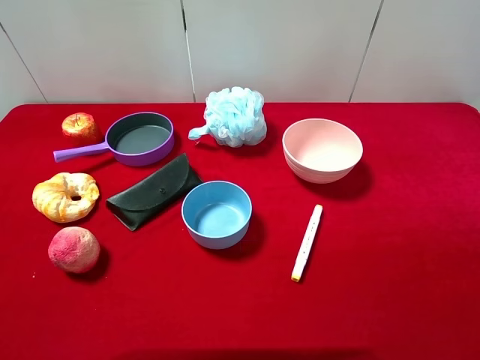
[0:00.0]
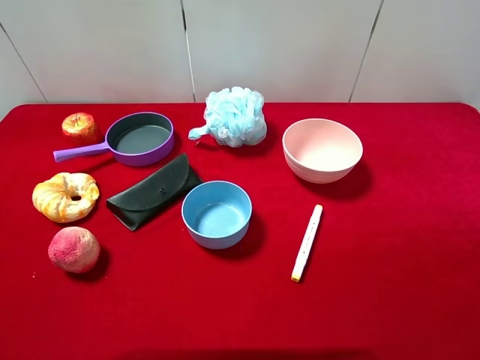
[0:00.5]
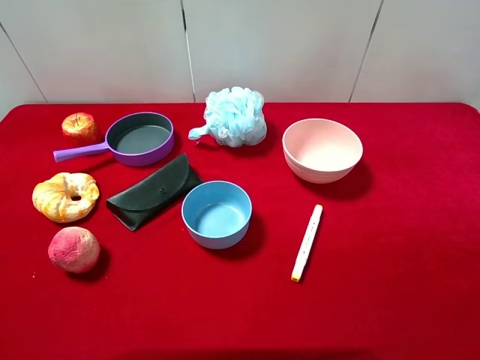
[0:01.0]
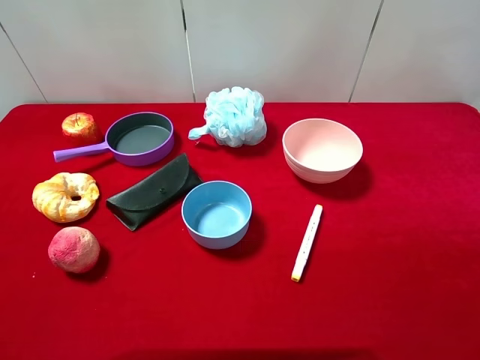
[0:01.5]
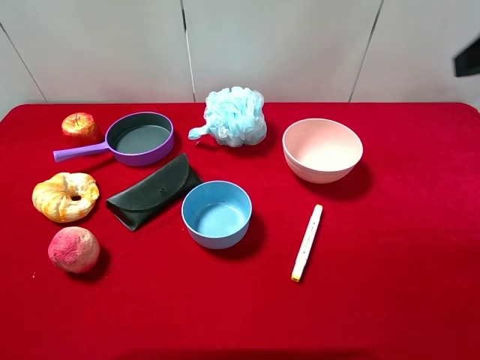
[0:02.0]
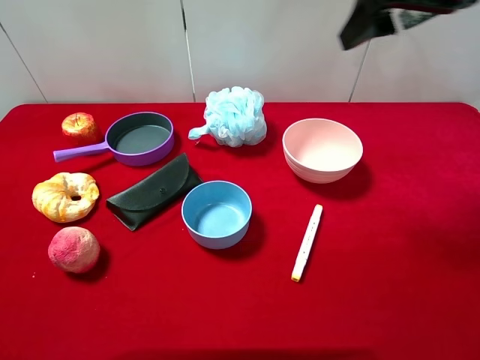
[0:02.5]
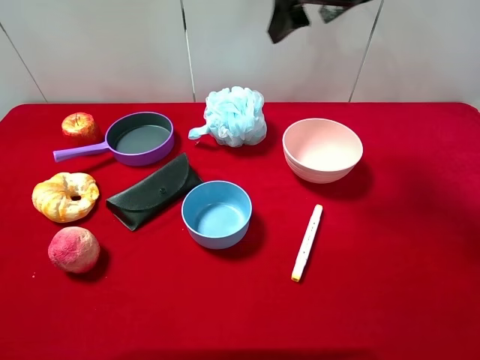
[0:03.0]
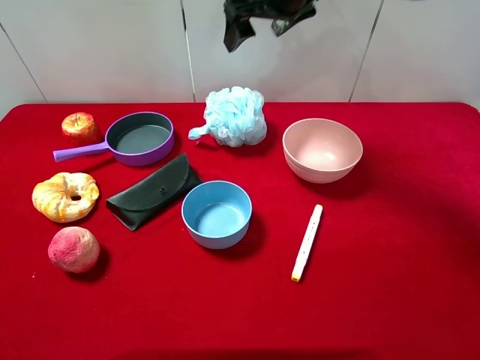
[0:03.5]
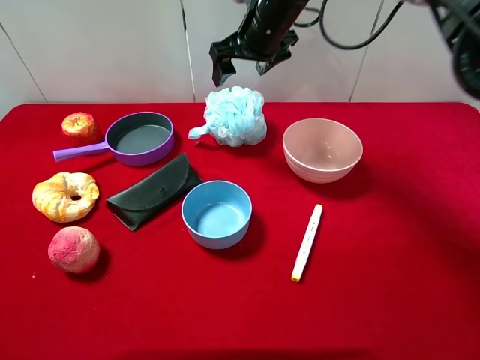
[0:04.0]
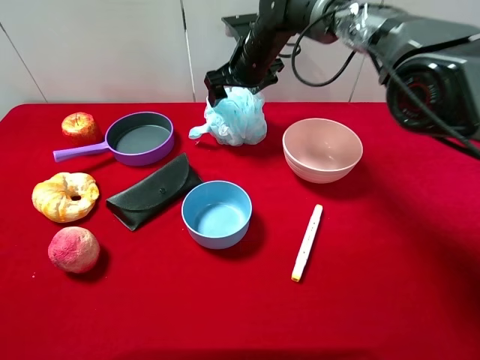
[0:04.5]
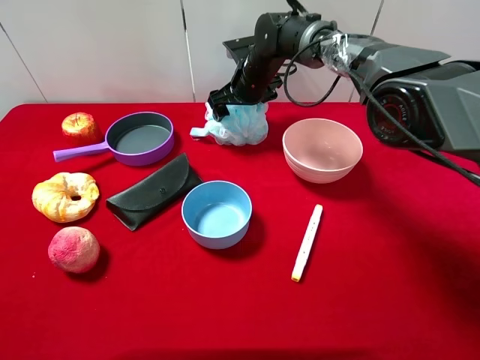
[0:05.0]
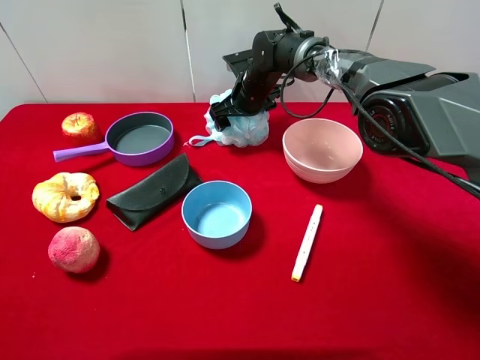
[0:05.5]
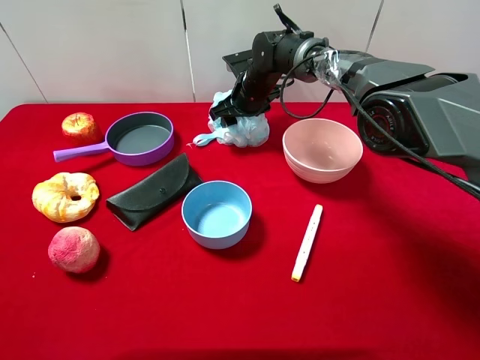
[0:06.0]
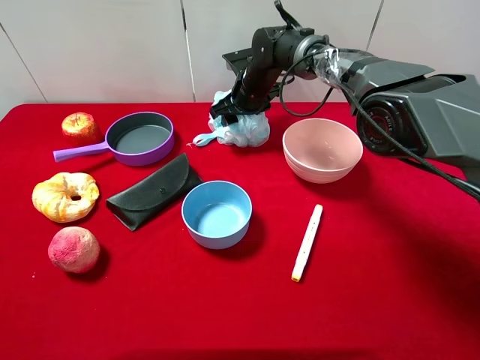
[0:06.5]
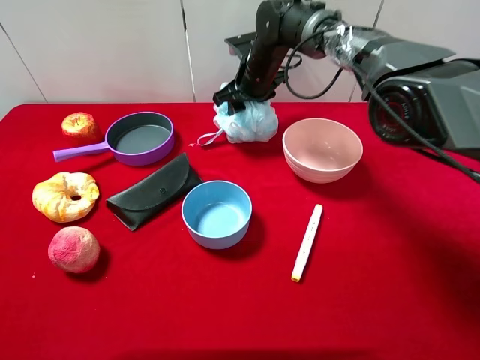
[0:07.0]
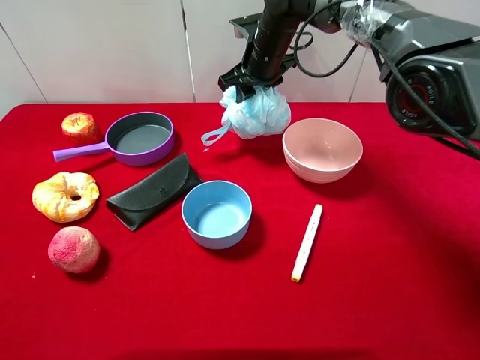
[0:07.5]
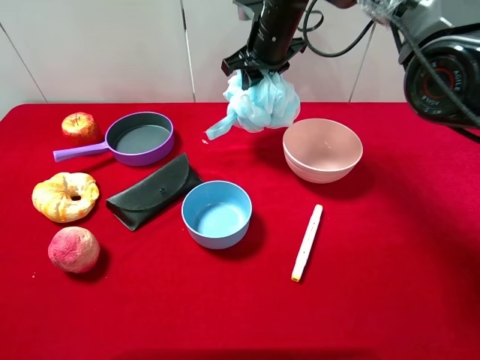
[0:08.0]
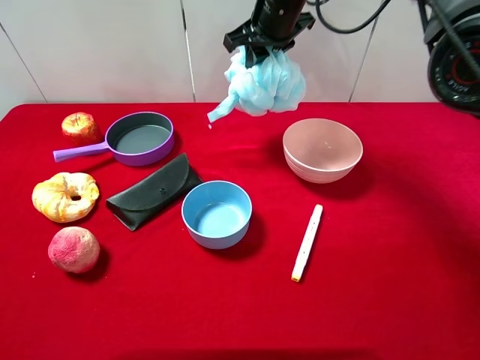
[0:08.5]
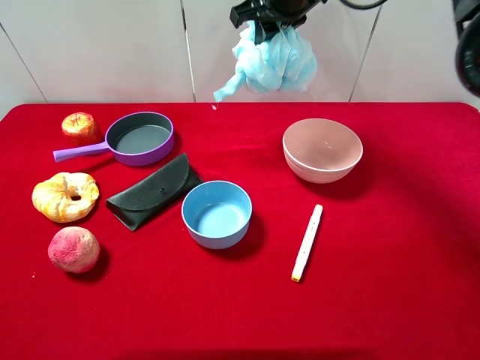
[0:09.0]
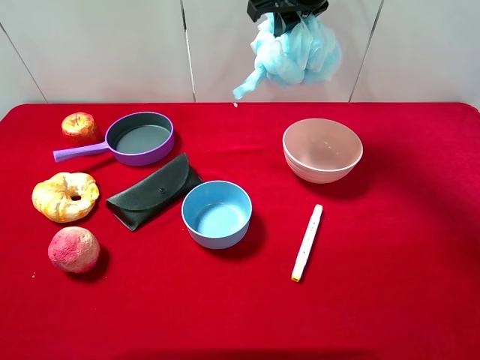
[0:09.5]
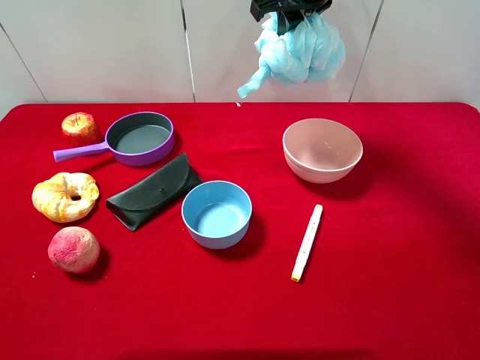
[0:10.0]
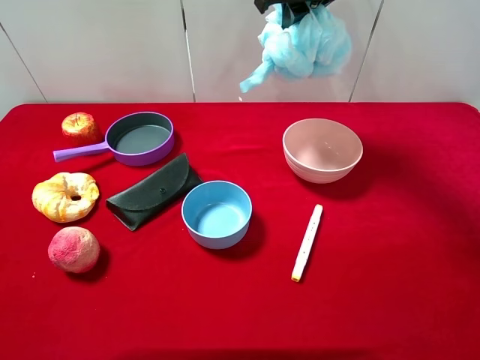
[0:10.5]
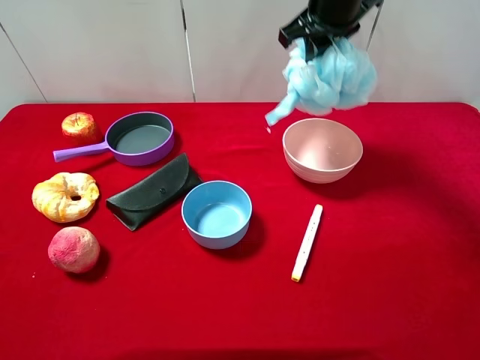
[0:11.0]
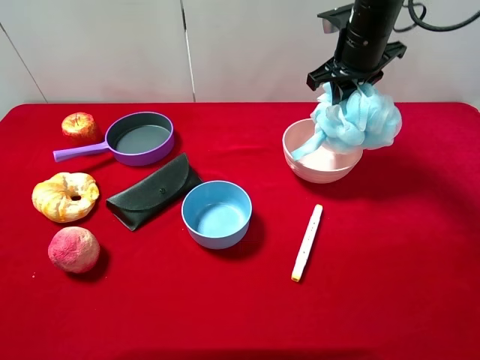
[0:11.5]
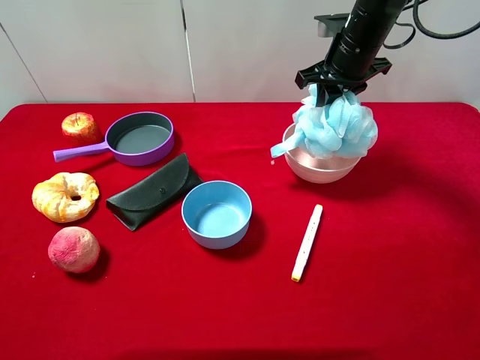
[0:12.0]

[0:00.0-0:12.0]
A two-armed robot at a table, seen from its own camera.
Task of the whole recording: pick up an item with a gripper and place it in a random container on the desktop.
0:02.0 to 0:04.0: The right gripper goes some 35 cm to the left, forward and downward.
0:04.0 to 0:06.0: The right gripper shifts some 15 cm downward, and closes its fingers.
0:06.0 to 0:08.0: The right gripper shifts approximately 10 cm upward, and closes its fingers.
0:08.0 to 0:10.0: The right gripper heads upward, covering approximately 10 cm.
0:10.0 to 0:12.0: The right gripper is displaced downward and to the right by roughly 10 cm.

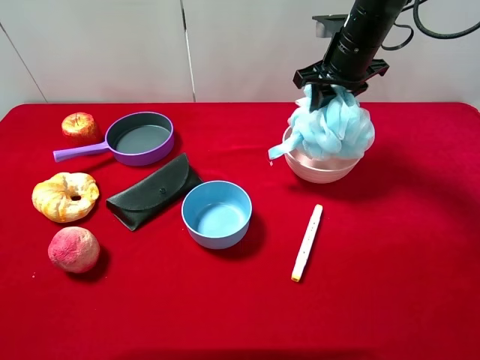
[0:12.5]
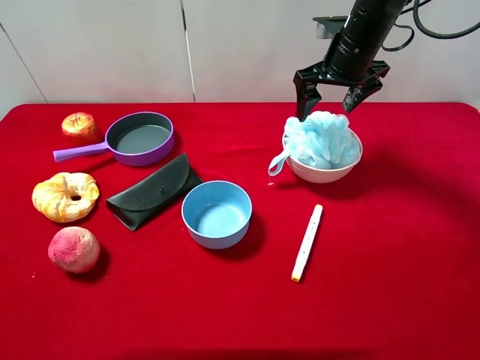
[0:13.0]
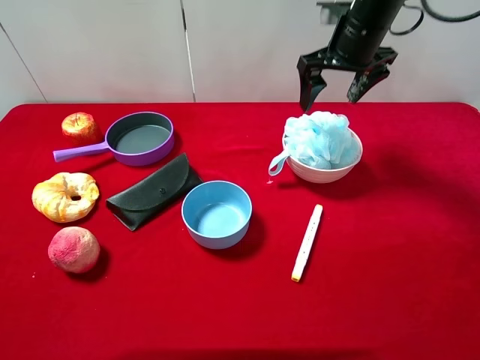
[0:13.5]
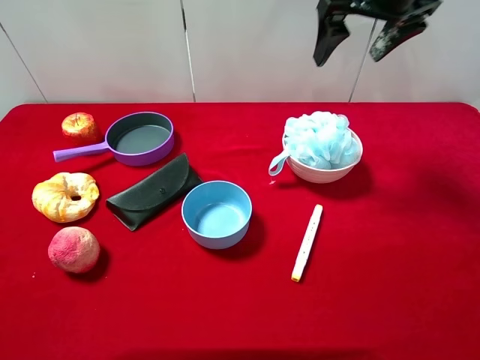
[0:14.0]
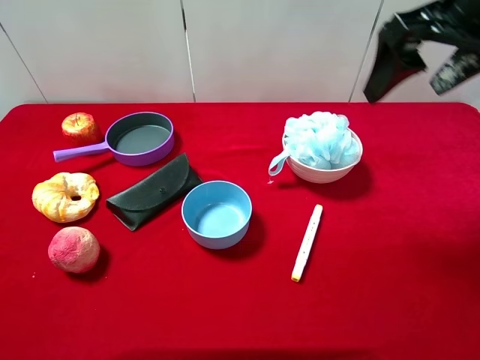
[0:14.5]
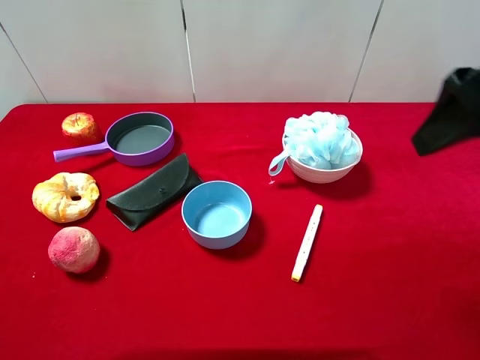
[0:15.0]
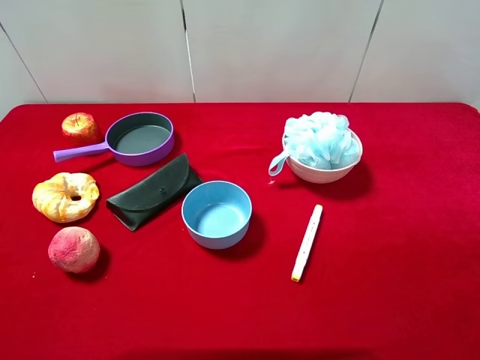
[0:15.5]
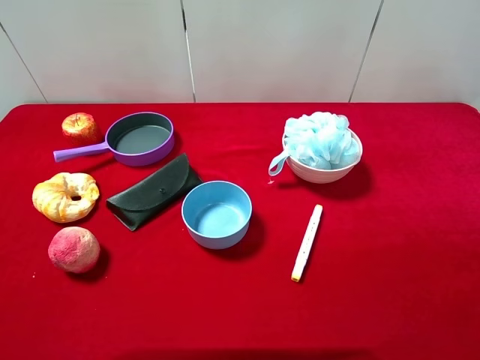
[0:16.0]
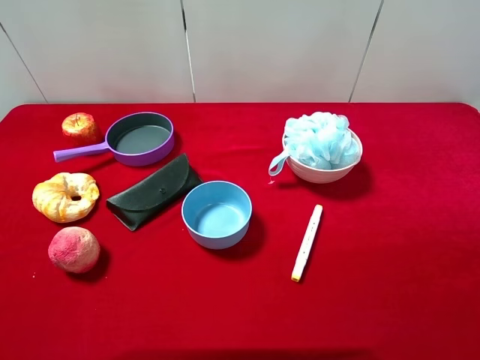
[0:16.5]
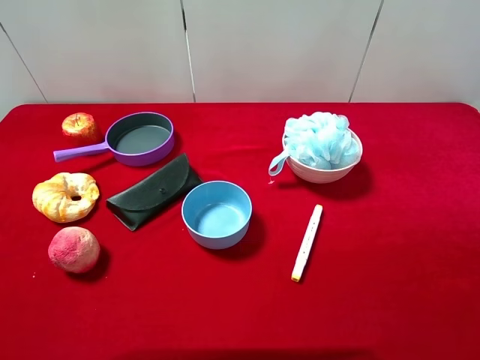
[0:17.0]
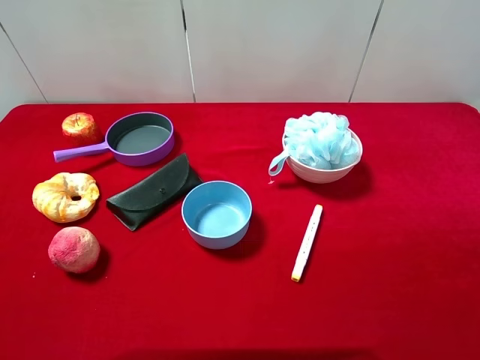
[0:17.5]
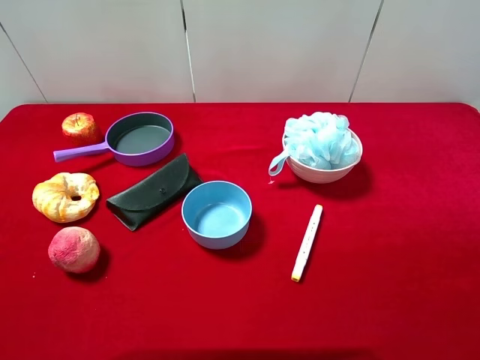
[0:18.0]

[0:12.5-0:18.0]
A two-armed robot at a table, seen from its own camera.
Task of the whole recording: pick up an item with a gripper and place it in a random container on the desktop.
0:12.5 to 0:14.5: The right gripper shifts roughly 20 cm backward and upward, and opens its fingers.
0:14.5 to 0:16.0: The right gripper moves backward, roughly 25 cm.

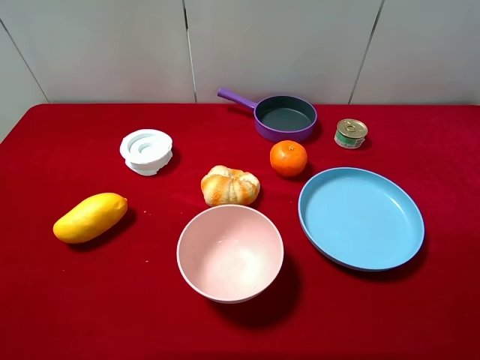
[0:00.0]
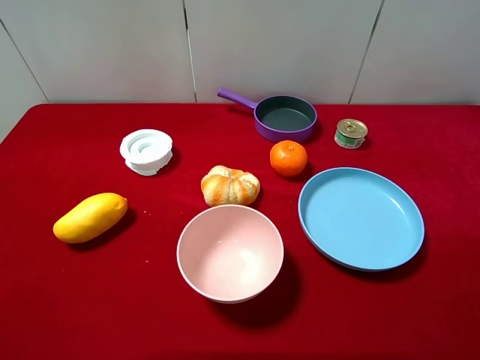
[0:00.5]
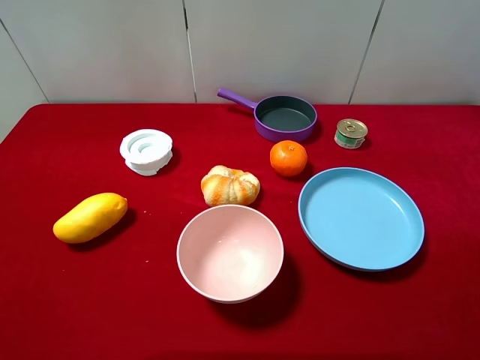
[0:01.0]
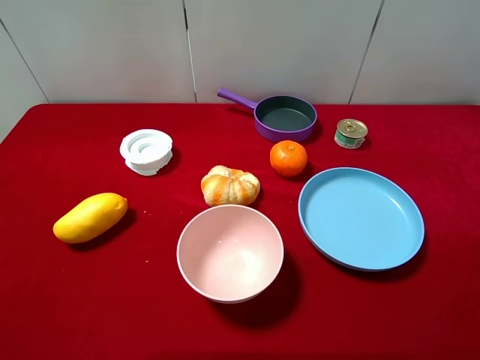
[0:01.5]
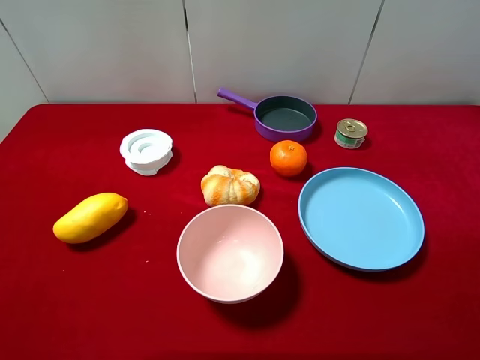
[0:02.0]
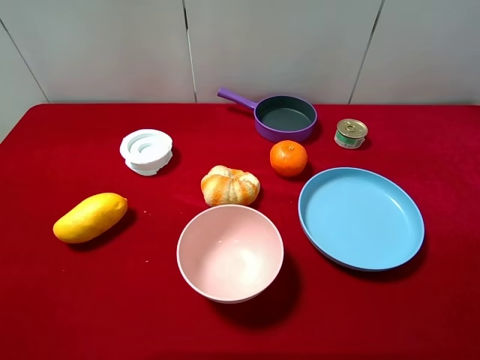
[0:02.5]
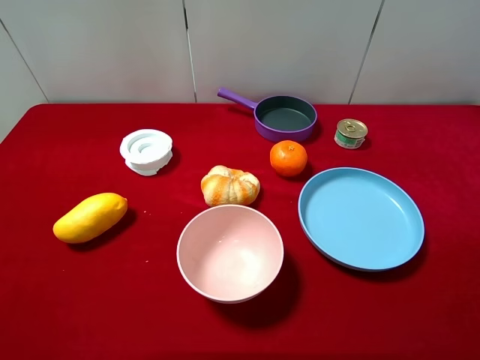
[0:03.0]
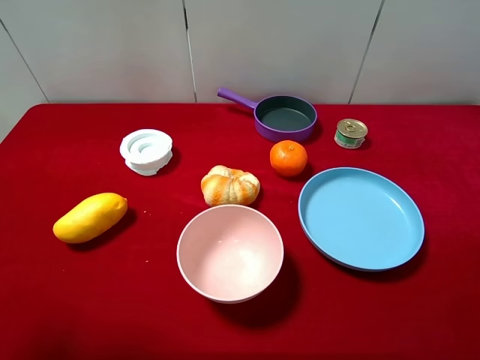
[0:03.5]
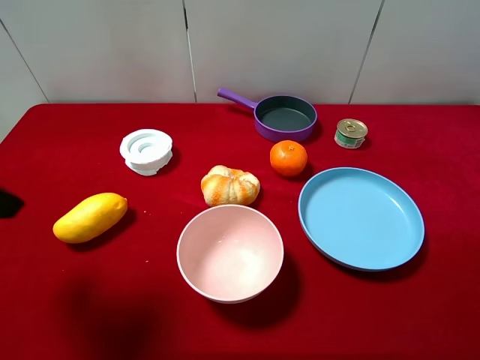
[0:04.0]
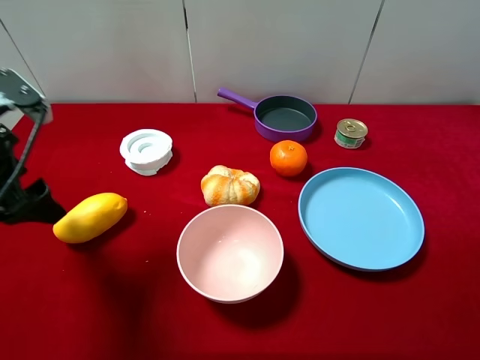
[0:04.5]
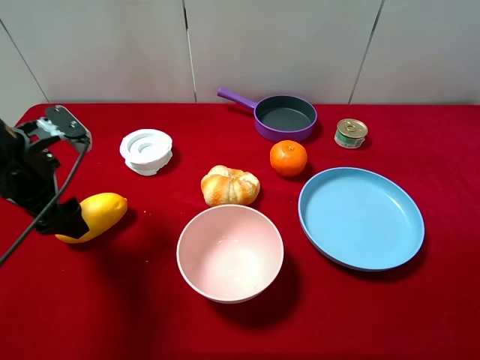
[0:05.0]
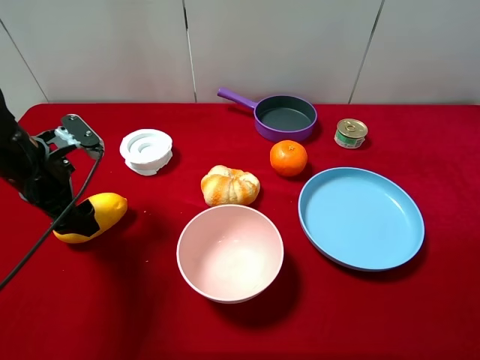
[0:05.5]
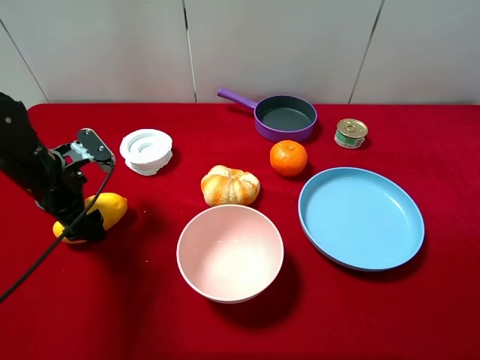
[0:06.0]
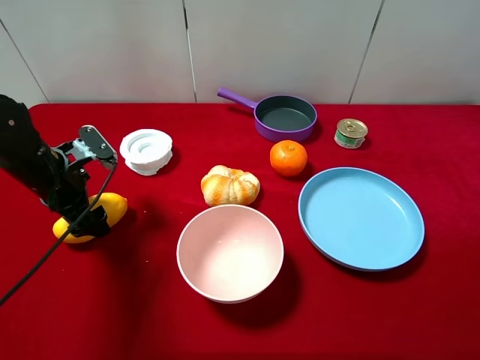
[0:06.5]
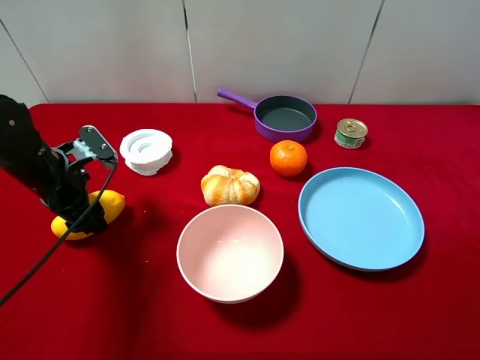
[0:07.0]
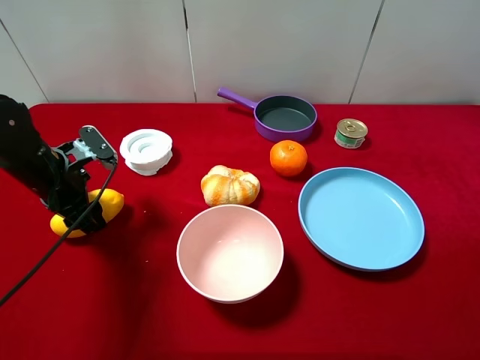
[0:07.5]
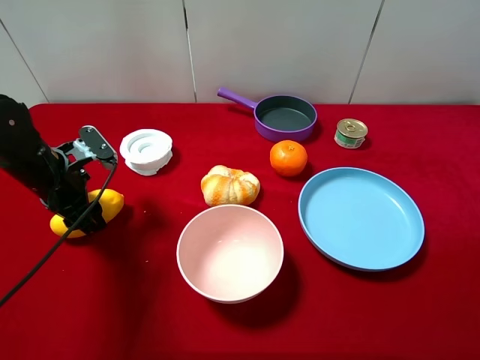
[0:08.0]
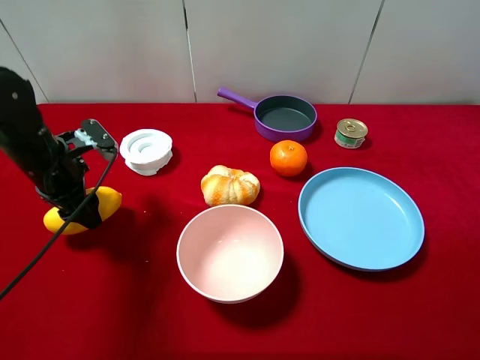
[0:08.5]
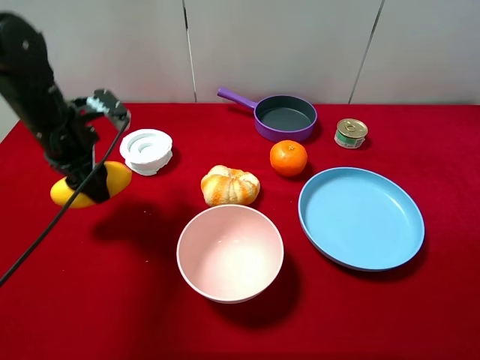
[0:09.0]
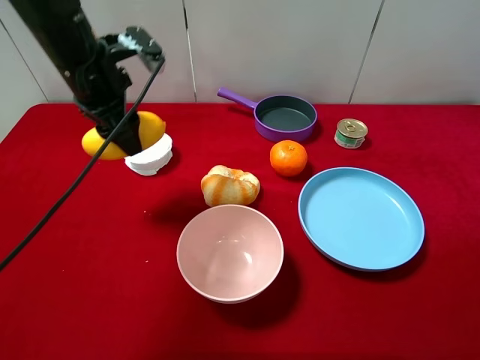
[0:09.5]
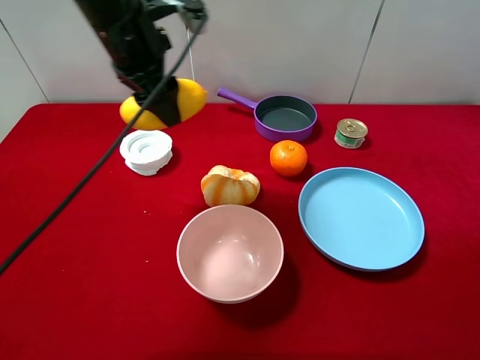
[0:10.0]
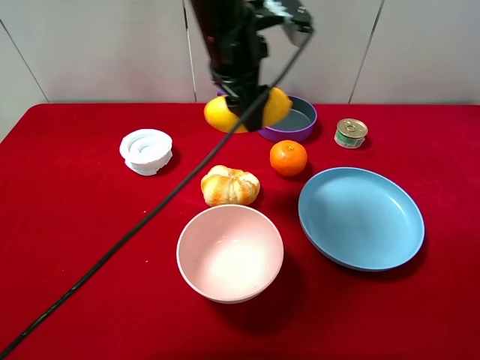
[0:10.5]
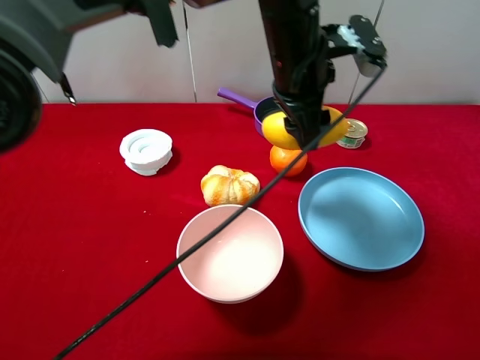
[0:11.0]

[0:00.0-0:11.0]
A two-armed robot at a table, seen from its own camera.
Task of the whole recording: pick up an item with a gripper and place it in a random container on the desktop.
0:00.0 to 0:02.0: Both grippers stay about where they are.
0:03.5 to 0:05.5: The left gripper moves forward and downward, roughly 25 cm.
0:05.5 to 0:07.5: The left gripper closes up.
0:07.5 to 0:09.0: The left gripper is displaced upward by approximately 5 cm.
0:09.0 to 0:11.0: The left gripper moves to the right, roughly 30 cm.
